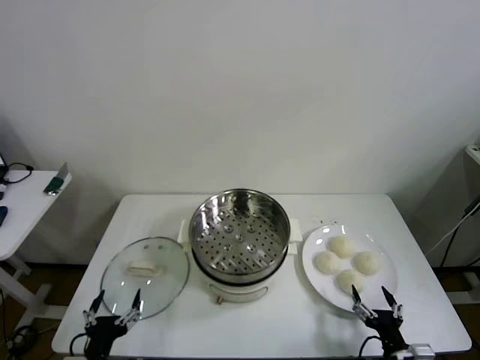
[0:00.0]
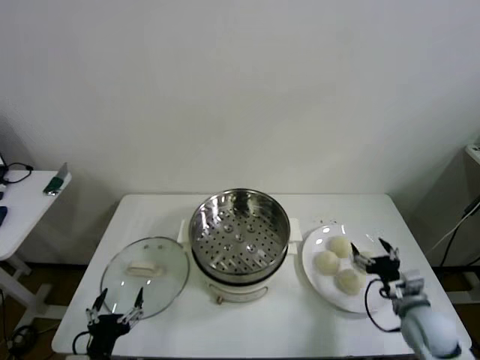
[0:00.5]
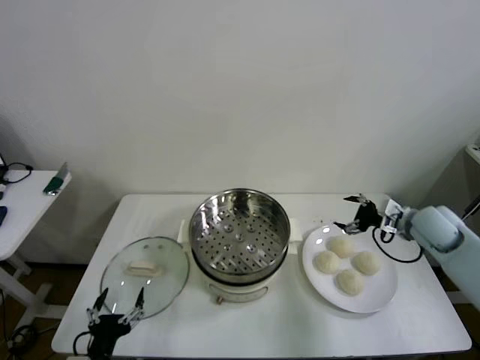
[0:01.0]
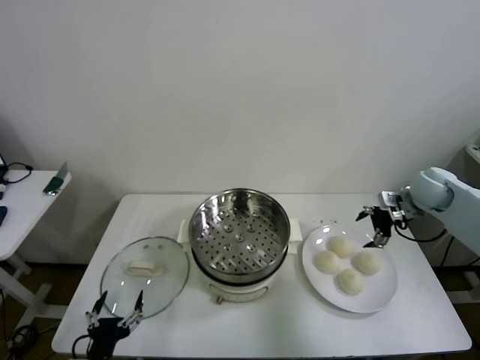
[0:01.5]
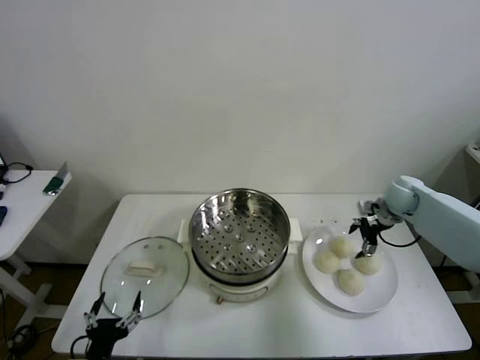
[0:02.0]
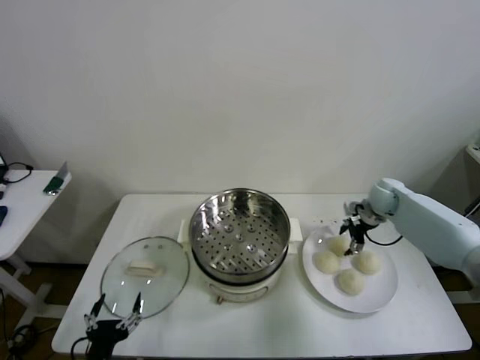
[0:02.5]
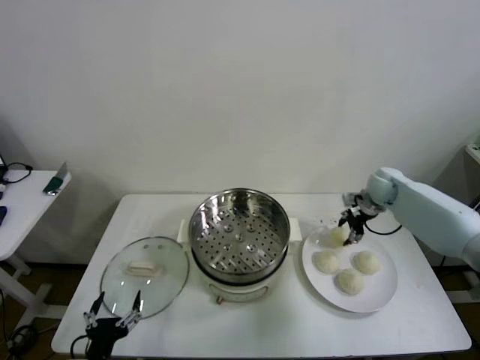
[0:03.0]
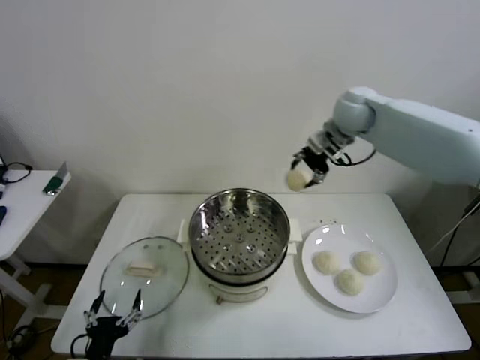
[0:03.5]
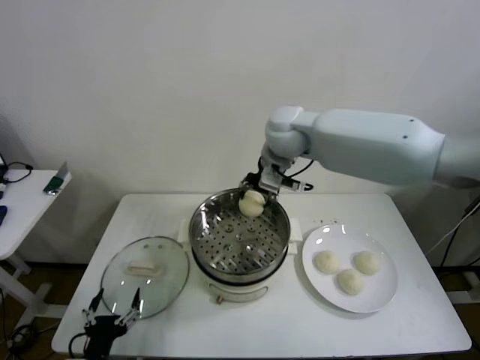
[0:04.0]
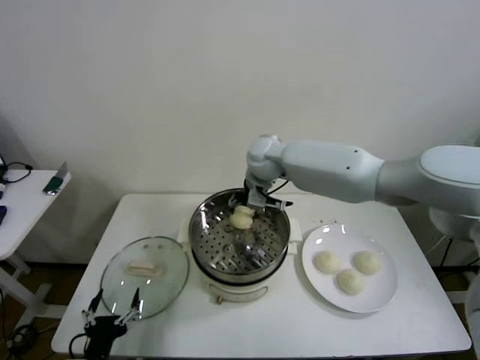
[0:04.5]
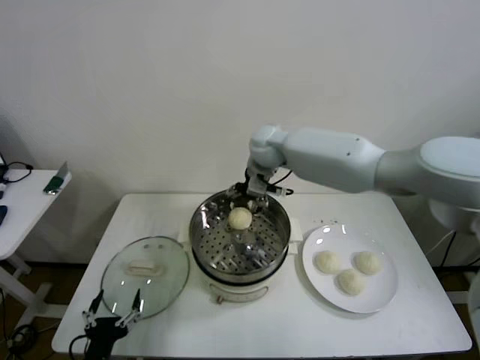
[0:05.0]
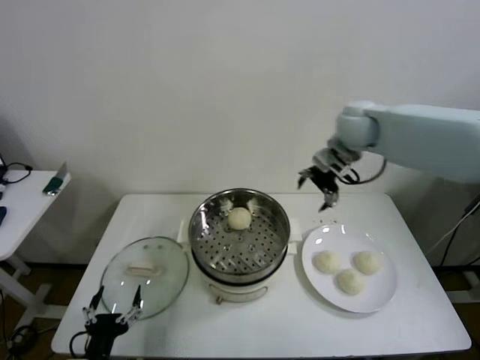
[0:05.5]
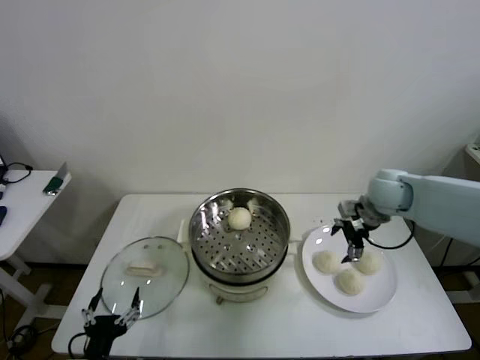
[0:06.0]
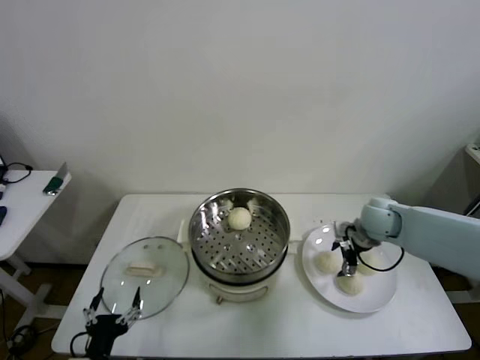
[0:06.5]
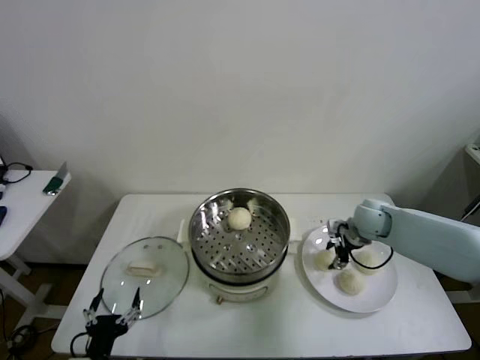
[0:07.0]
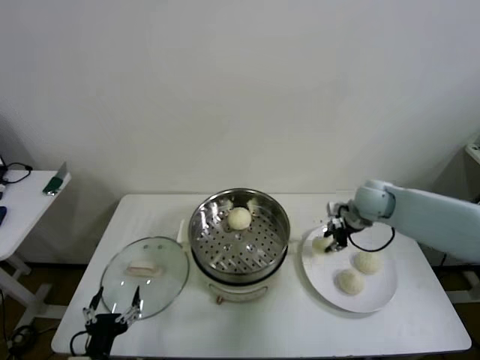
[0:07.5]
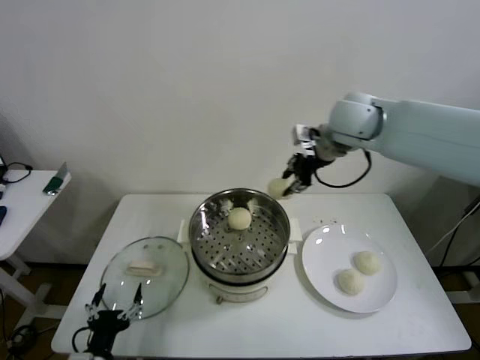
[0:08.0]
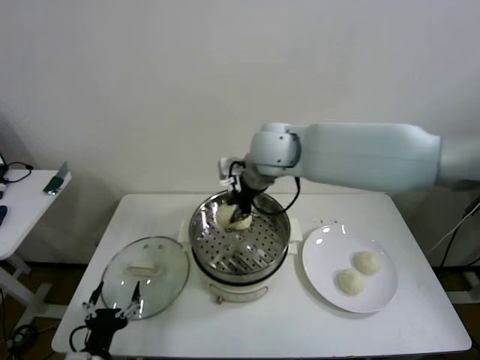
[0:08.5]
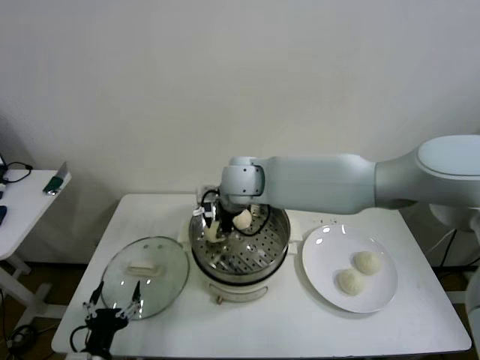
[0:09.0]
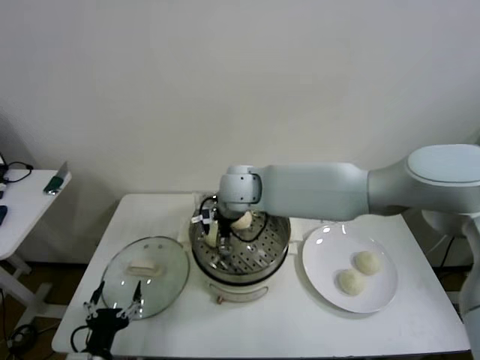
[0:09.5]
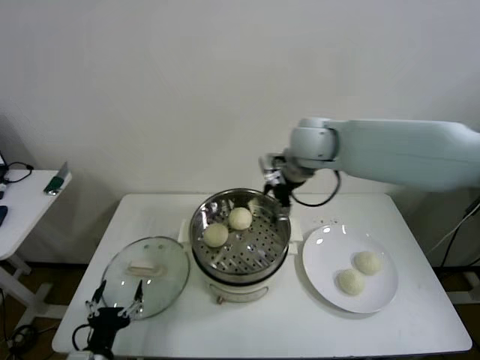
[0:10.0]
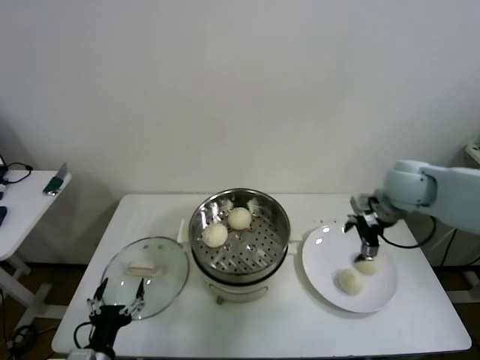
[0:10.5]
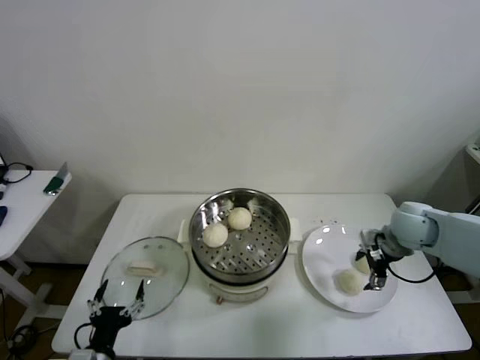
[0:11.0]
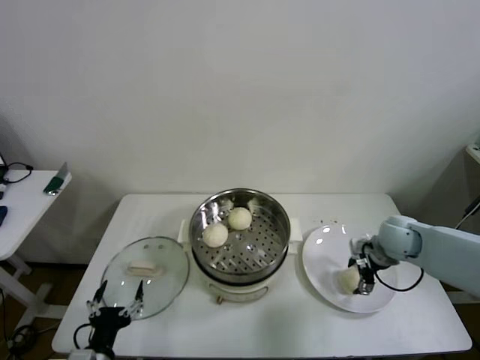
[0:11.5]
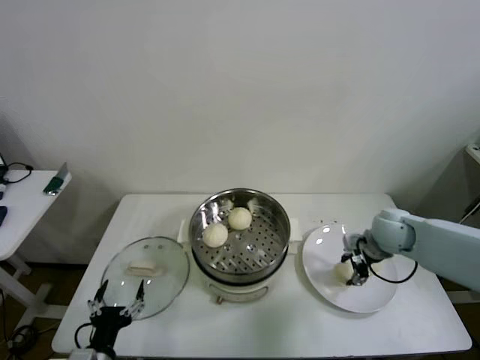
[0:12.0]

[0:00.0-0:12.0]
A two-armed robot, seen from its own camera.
Step, 0:00.0 to 0:02.5: Grasp the baozi in the plate with right gripper.
Step, 0:03.0 to 0:05.0: Place the baozi on the steamer with right gripper.
Step, 0:05.5 to 0:07.0: Grasp the baozi in the plate with right gripper.
Step, 0:07.5 to 0:09.5: Place the baozi on the steamer with right gripper.
Step, 0:10.0 to 0:11.5: Grasp the baozi in the plate with right gripper.
0:02.0 to 0:04.0: The right gripper shifts roughly 40 cm to the left and upward, and closes.
0:04.0 to 0:06.0: The right gripper is displaced to the right and downward by approximately 30 cm, and opens its fingers.
0:06.0 to 0:08.0: The right gripper is displaced upward and to the left by roughly 25 cm, and closes up.
0:08.0 to 0:10.0: The right gripper reaches roughly 20 cm to the left, then returns, and opens up.
0:10.0 to 0:12.0: The right gripper shifts some 25 cm downward and to the right, and closes up.

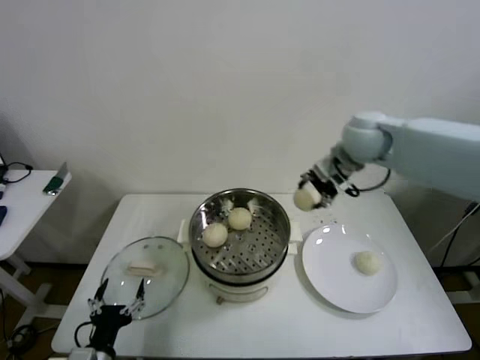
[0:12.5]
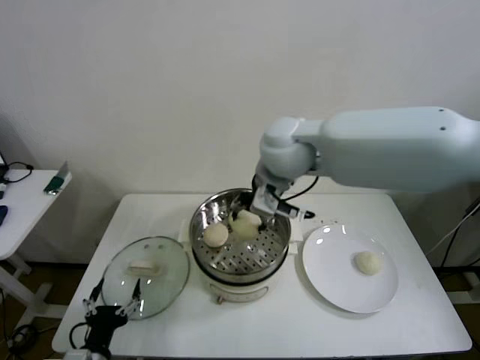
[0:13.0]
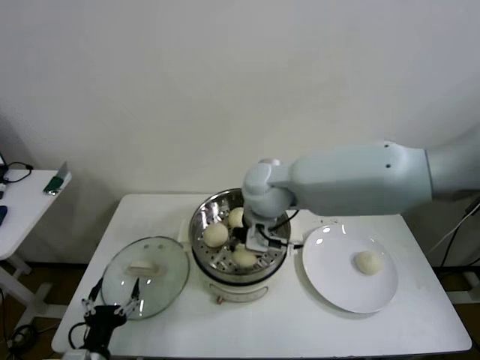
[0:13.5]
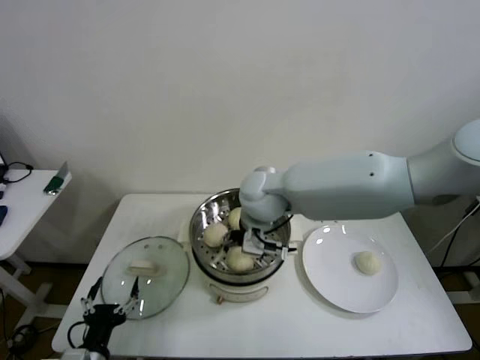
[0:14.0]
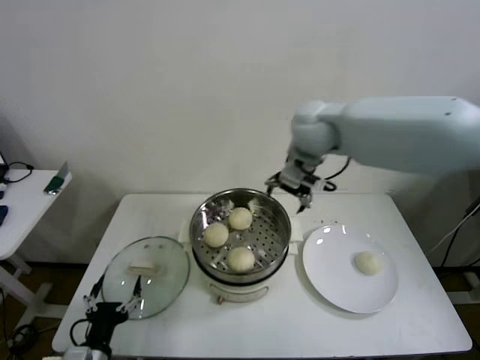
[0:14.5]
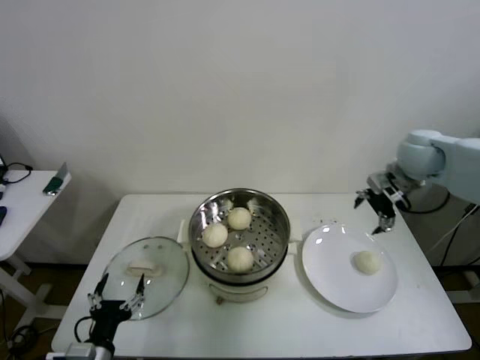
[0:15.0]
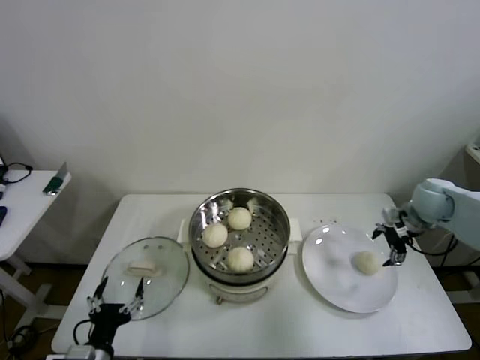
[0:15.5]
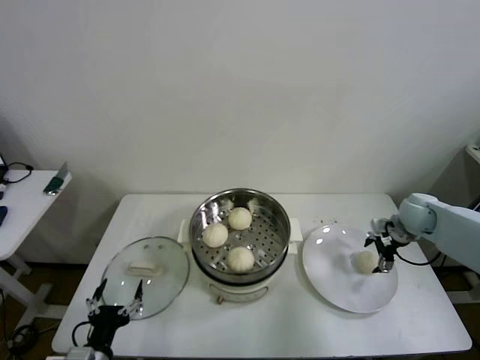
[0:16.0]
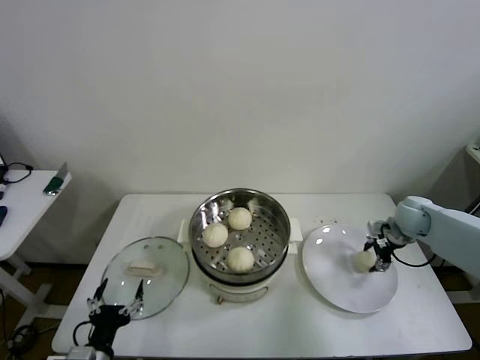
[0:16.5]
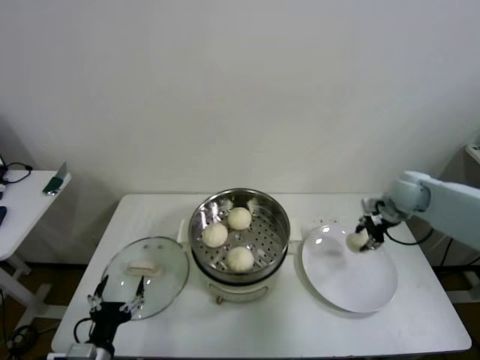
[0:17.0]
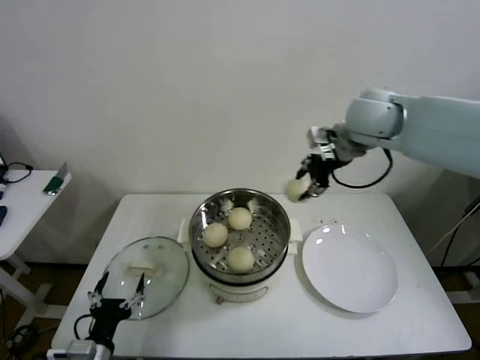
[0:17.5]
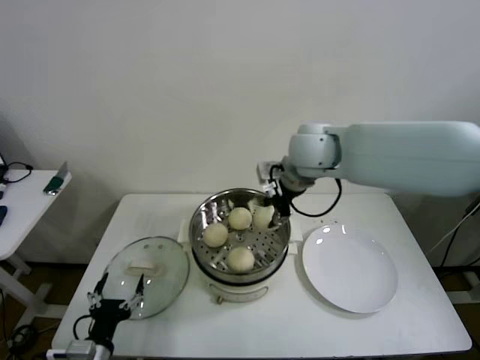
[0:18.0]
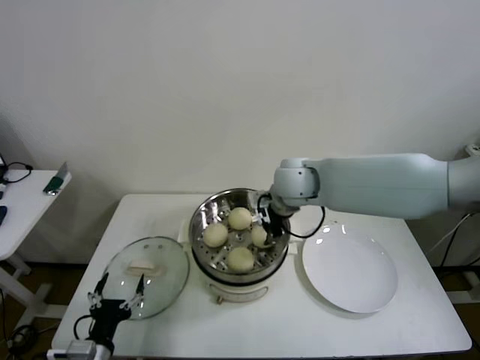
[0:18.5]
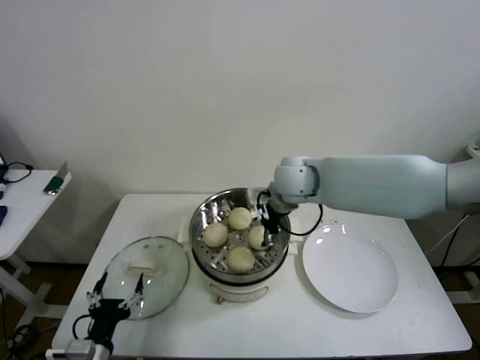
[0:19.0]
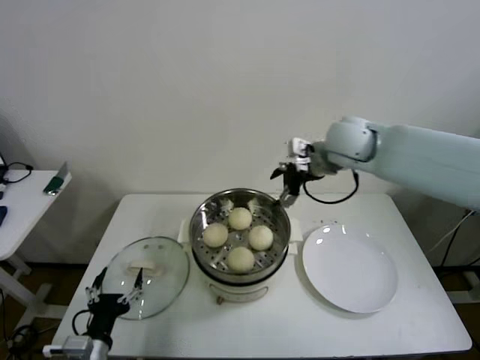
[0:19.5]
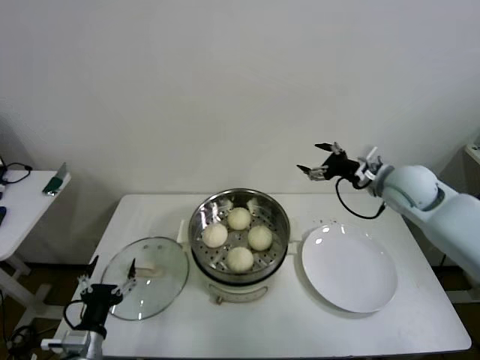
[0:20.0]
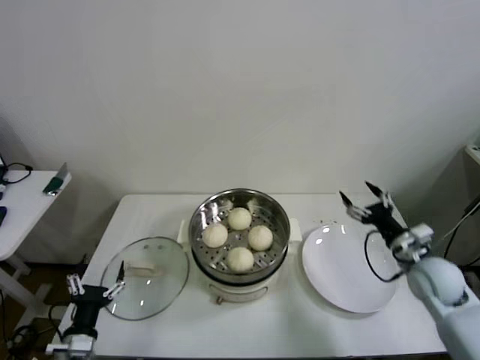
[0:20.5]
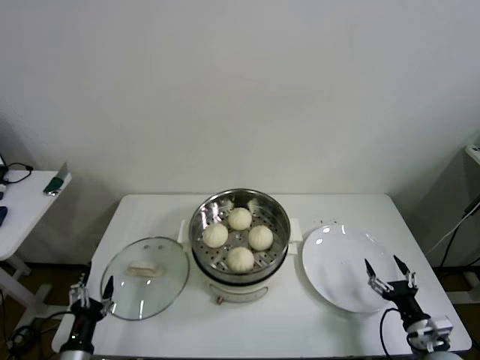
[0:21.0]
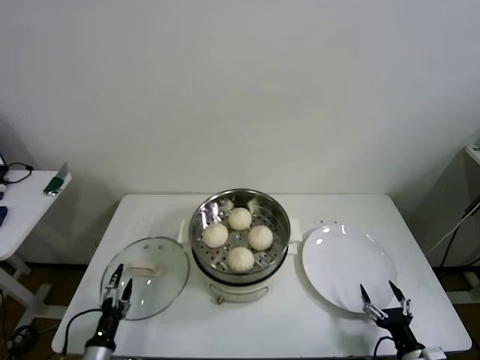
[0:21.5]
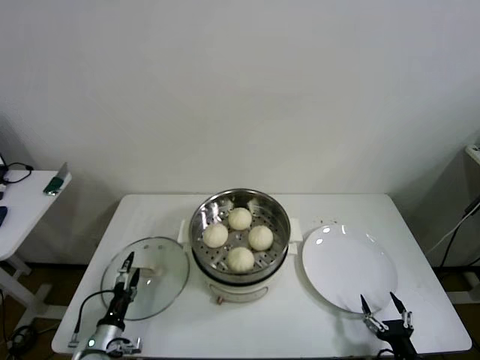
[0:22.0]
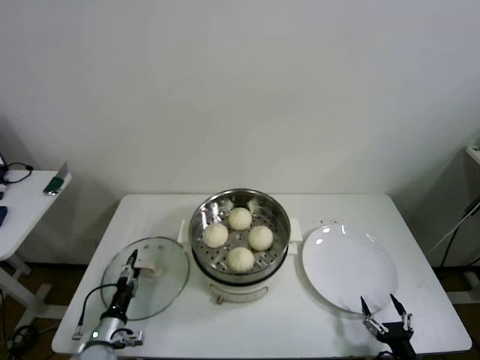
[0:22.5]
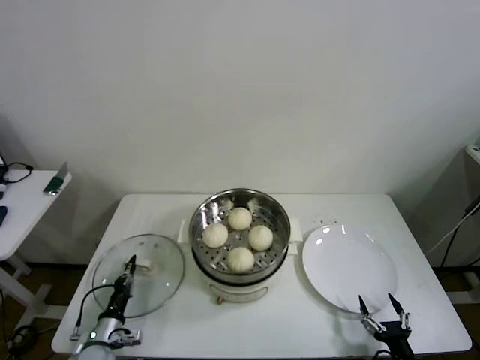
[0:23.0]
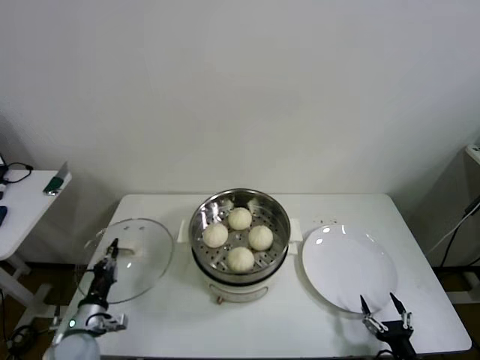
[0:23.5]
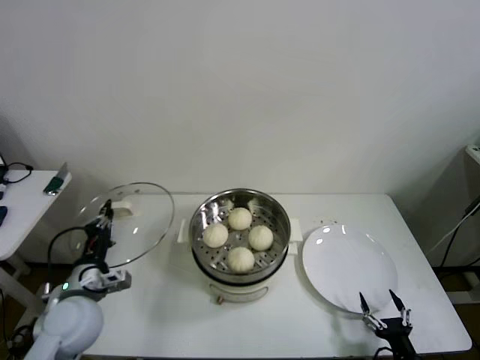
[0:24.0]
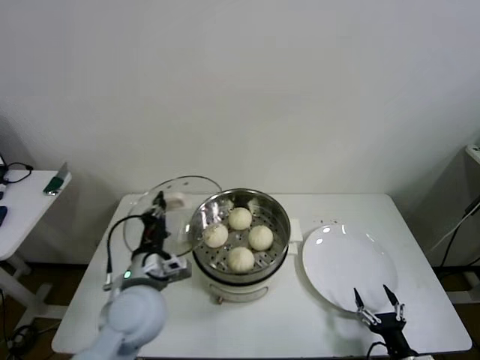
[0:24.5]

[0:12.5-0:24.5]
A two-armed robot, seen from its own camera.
Step, 0:12.5 to 0:14.0: Place the baozi on the steamer with right gripper.
Step, 0:14.5 to 0:16.5: Grasp the baozi in the plate with right gripper.
Step, 0:17.0 to 0:19.0: Place the baozi on the steamer with right gripper.
Step, 0:19.5 to 0:23.0: Grasp the pot lid with left gripper.
0:12.5 to 0:14.5: The right gripper travels to the left and back again, about 20 cm each way, and opens up.
0:14.5 to 0:16.5: The right gripper goes roughly 35 cm to the right and downward, and closes up.
0:16.5 to 0:18.5: The right gripper travels to the left and upward by approximately 35 cm.
0:18.5 to 0:20.5: The right gripper moves to the right, downward and backward, roughly 35 cm, and opens up.
0:20.5 to 0:22.5: The left gripper heads downward and forward, covering about 15 cm, while the right gripper goes about 30 cm backward and downward.
0:22.5 to 0:24.5: The left gripper moves upward and to the right, some 30 cm, and closes up.

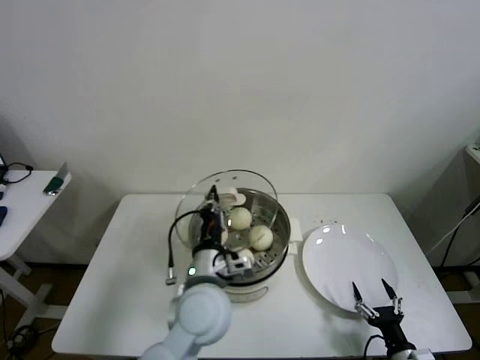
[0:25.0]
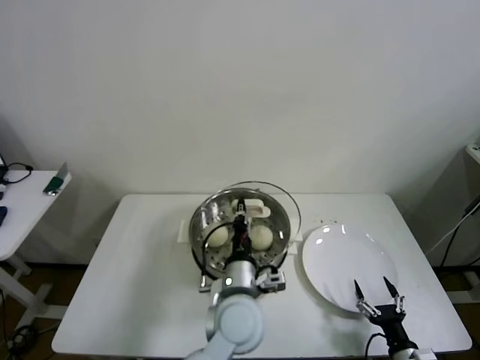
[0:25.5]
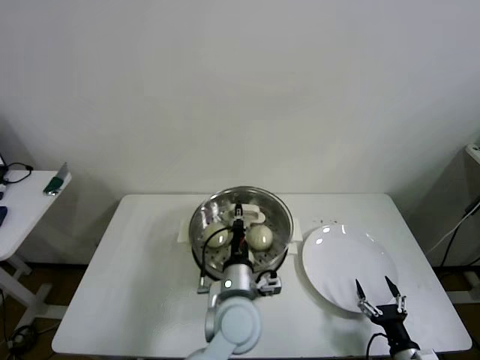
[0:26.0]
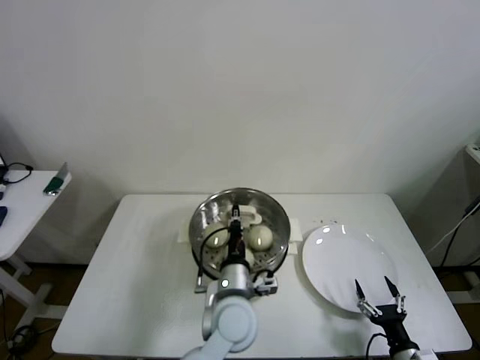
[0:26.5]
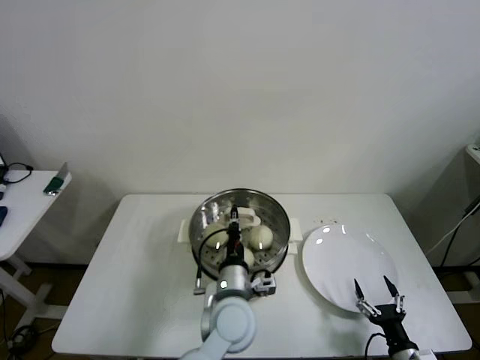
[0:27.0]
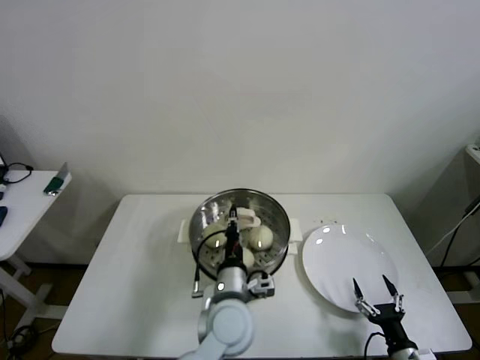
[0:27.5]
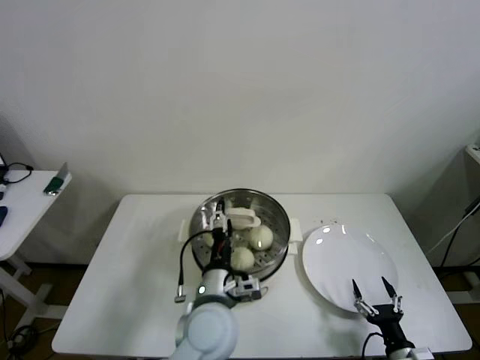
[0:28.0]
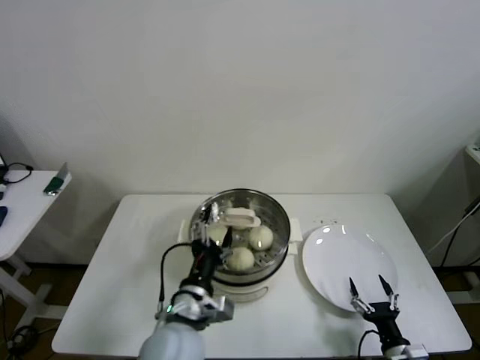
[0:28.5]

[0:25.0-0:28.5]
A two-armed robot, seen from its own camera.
Step, 0:25.0 to 0:28.5: Place the pot lid on the steamer with left gripper.
0:25.0 to 0:27.0: The left gripper is displaced downward and to the right by some 10 cm.
0:27.0 to 0:28.5: The left gripper heads to the left and backward, covering some 10 cm, and opens.
